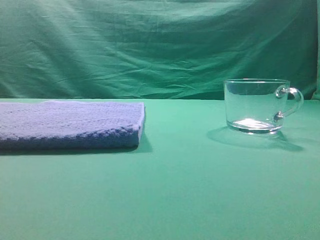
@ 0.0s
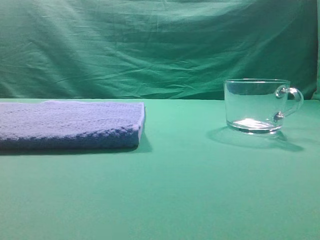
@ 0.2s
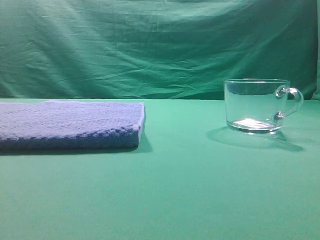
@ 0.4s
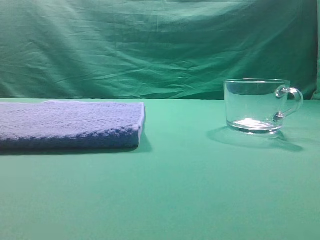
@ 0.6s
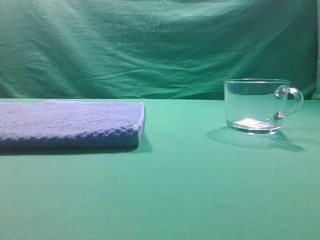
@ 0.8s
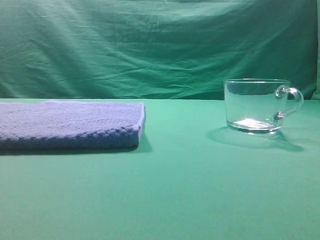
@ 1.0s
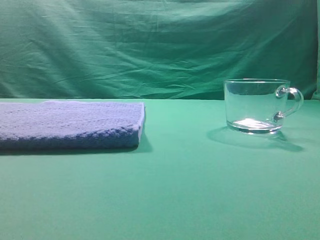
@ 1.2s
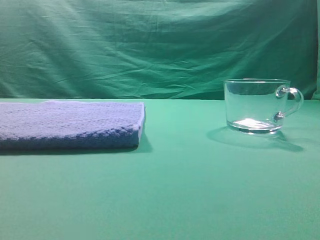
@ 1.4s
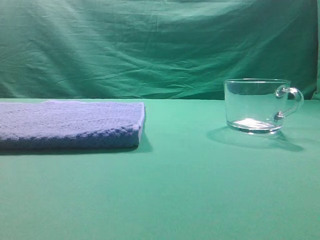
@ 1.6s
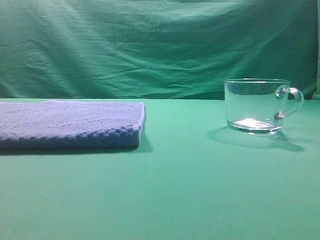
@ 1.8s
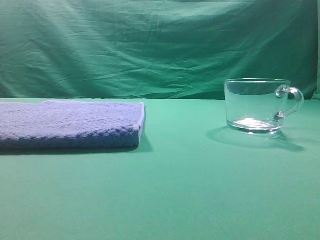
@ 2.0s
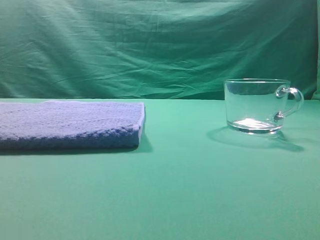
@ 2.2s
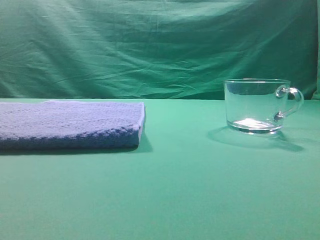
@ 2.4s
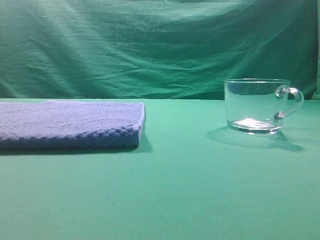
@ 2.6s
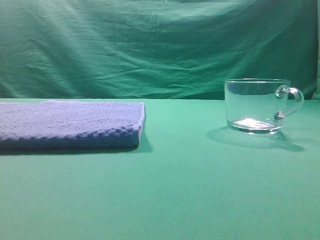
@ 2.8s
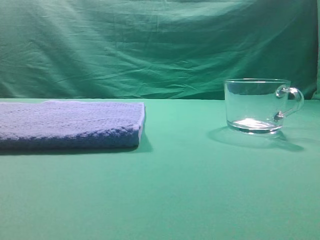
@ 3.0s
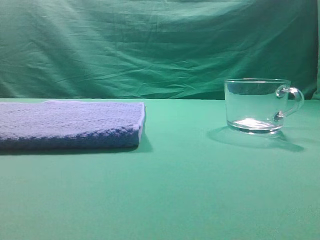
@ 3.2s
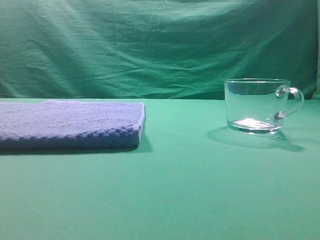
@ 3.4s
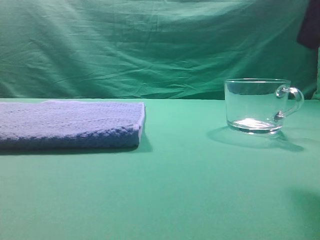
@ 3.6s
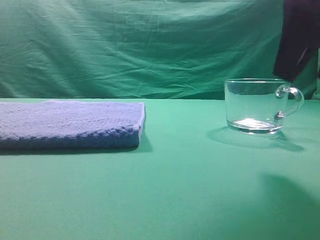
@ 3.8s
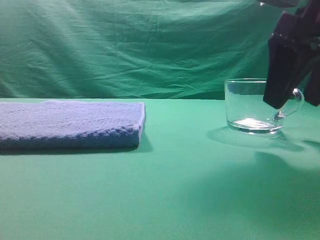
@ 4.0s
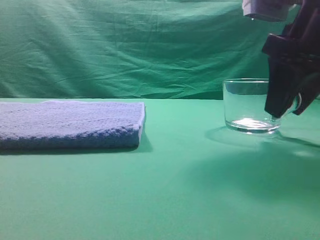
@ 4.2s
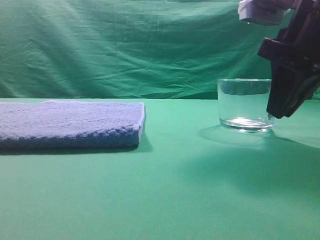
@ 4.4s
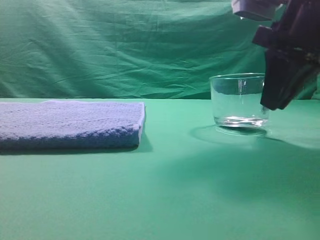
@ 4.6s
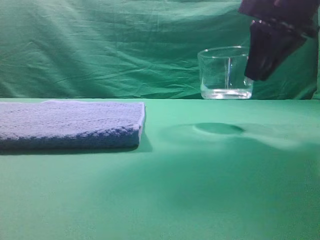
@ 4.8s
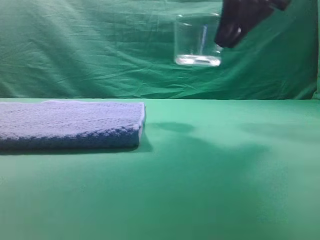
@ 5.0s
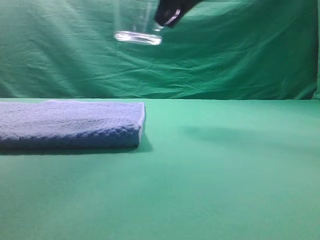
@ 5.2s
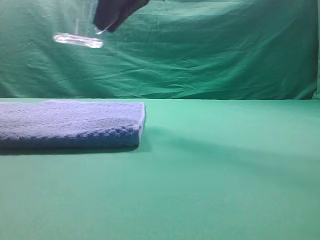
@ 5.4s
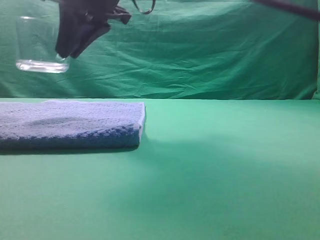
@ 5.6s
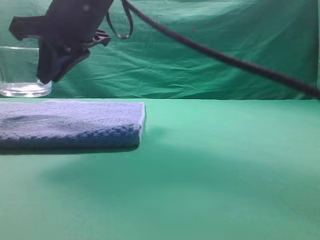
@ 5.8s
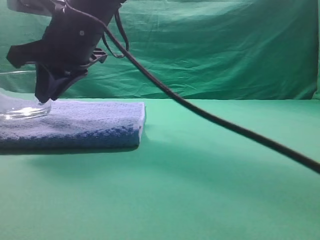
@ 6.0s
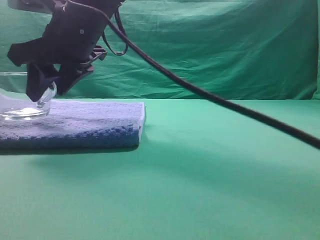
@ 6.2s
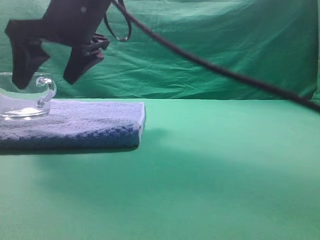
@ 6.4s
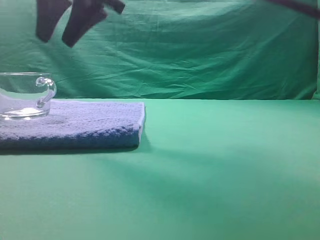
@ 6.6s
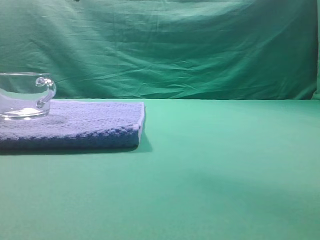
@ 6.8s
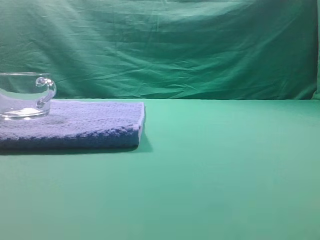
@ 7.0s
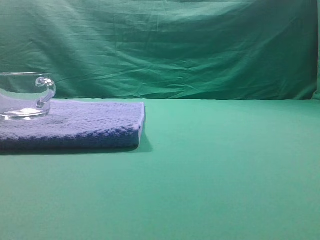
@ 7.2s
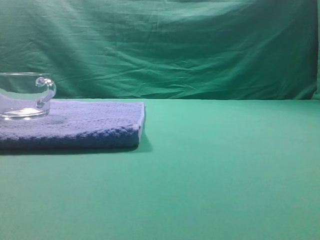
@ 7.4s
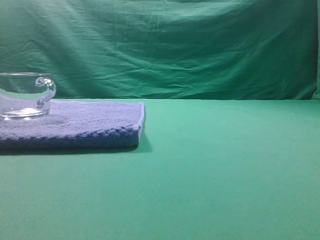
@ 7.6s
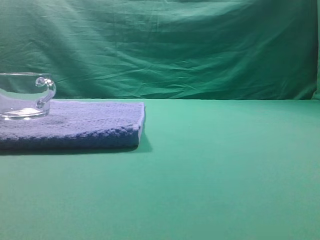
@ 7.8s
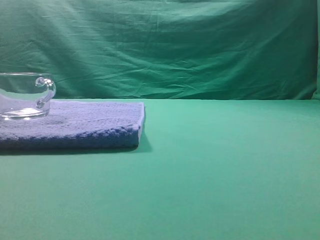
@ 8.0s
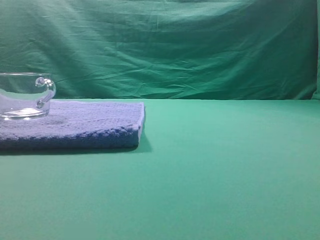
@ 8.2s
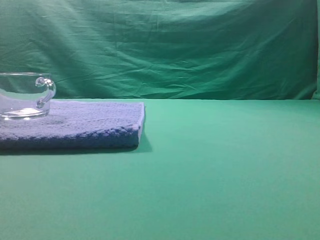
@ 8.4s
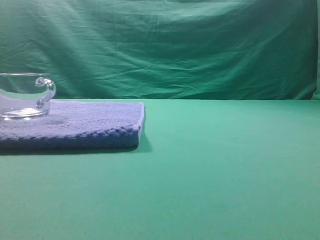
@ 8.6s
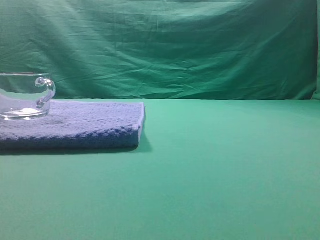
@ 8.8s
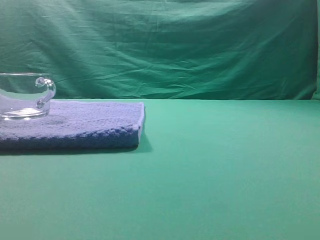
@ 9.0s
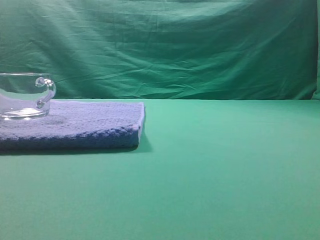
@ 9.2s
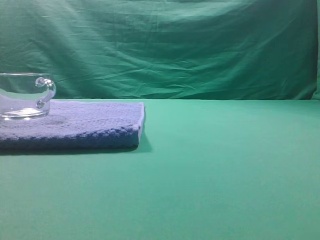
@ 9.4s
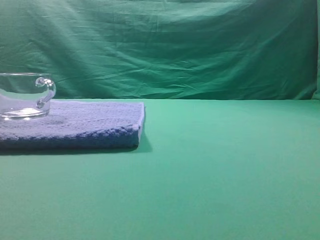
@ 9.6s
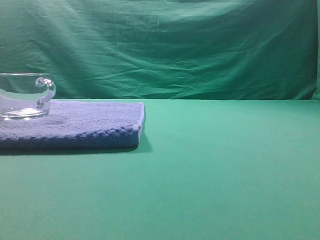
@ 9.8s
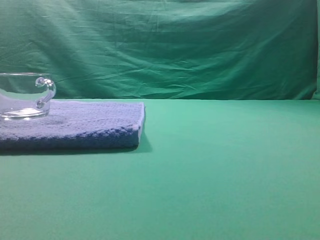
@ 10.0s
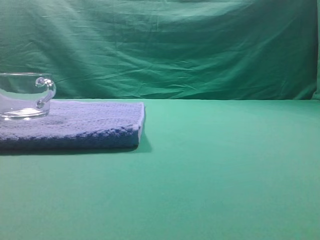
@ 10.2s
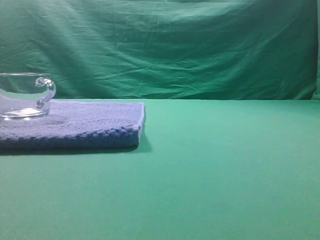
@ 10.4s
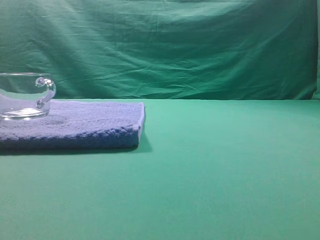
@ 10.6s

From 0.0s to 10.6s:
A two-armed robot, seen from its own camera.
Task of the whole recording: grasp the transparent glass cup and place it within the blue towel.
Step, from 0.0s to 4.6s: Grasp the transparent glass cup.
Step, from 4.8s to 6.4s: Place the glass cup on the blue zone.

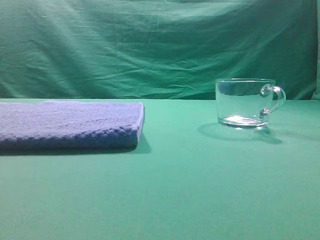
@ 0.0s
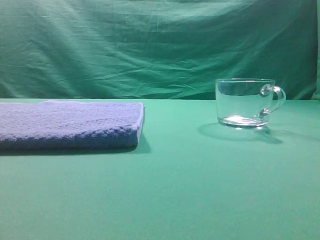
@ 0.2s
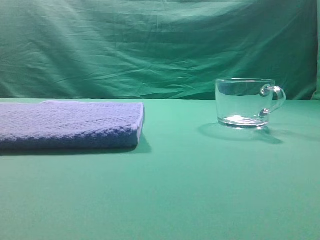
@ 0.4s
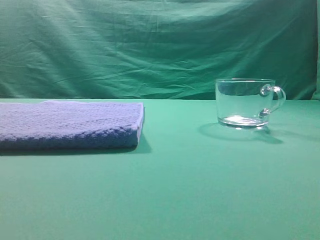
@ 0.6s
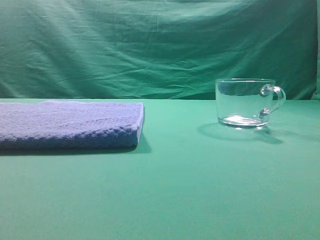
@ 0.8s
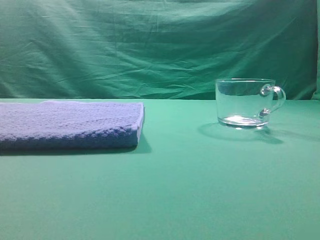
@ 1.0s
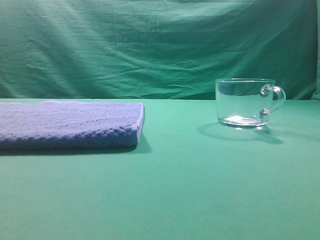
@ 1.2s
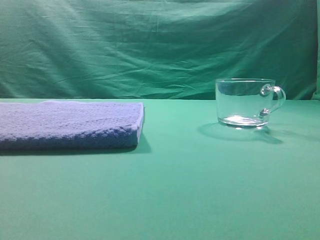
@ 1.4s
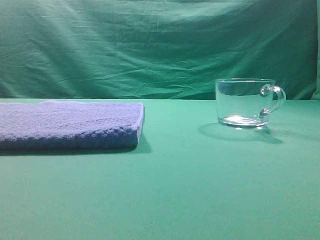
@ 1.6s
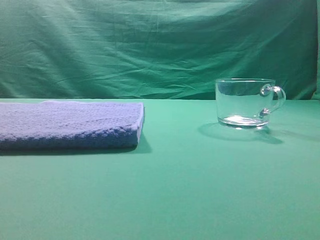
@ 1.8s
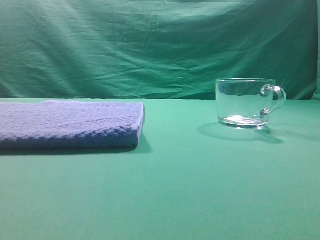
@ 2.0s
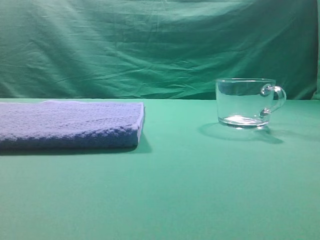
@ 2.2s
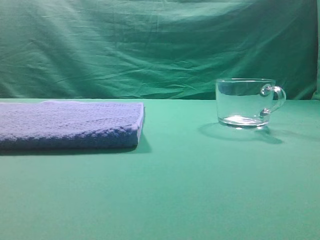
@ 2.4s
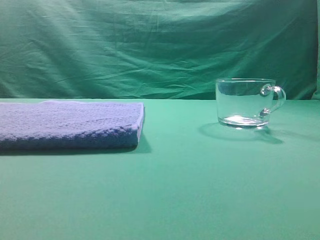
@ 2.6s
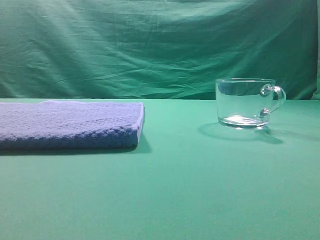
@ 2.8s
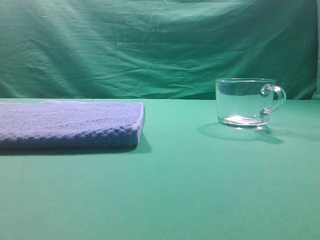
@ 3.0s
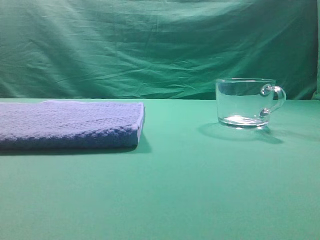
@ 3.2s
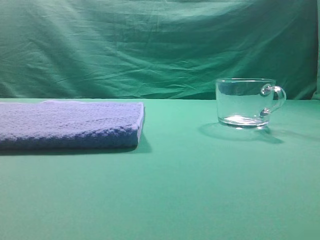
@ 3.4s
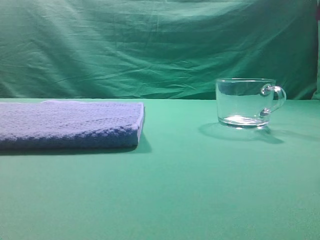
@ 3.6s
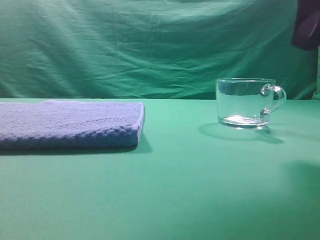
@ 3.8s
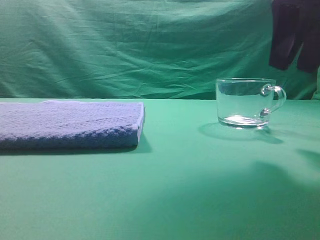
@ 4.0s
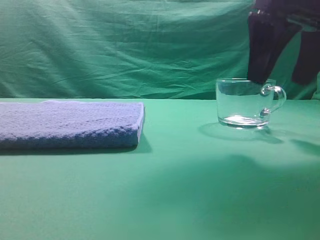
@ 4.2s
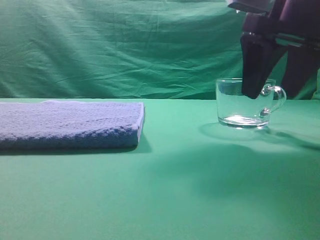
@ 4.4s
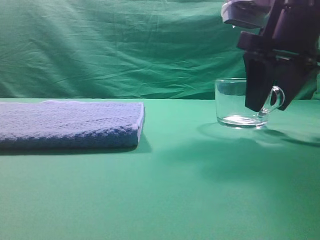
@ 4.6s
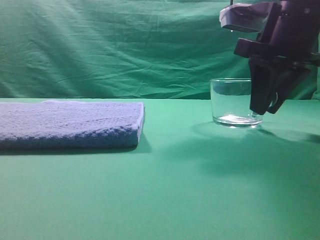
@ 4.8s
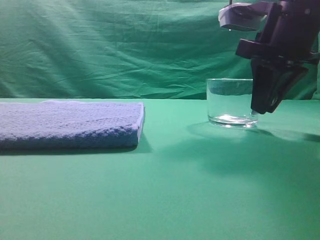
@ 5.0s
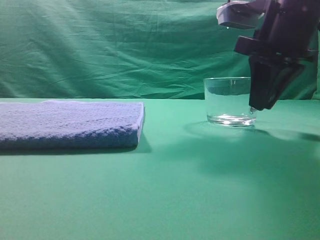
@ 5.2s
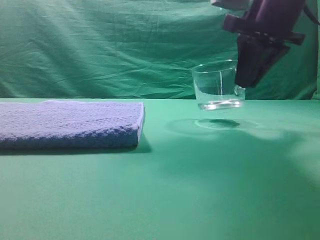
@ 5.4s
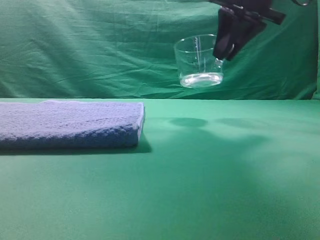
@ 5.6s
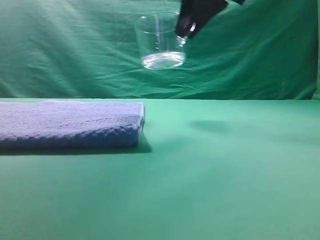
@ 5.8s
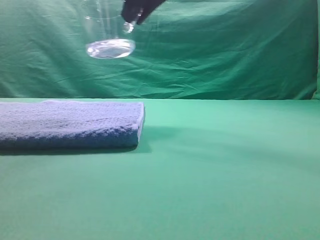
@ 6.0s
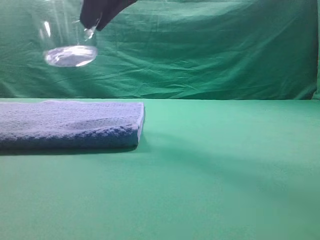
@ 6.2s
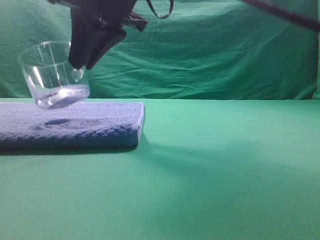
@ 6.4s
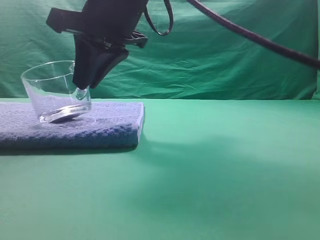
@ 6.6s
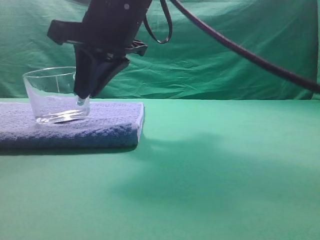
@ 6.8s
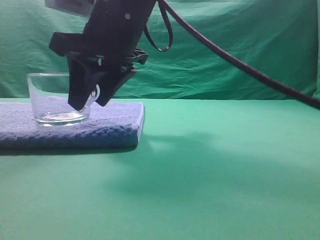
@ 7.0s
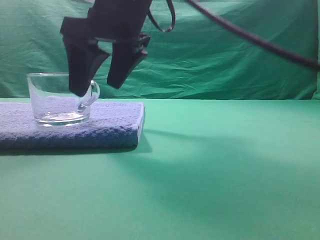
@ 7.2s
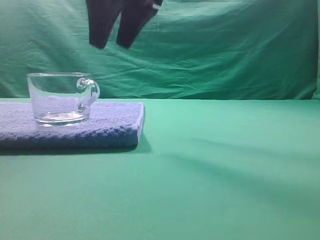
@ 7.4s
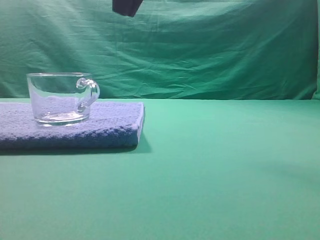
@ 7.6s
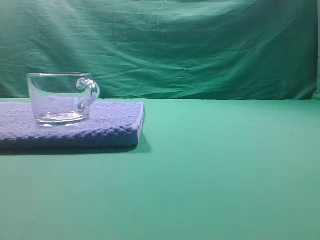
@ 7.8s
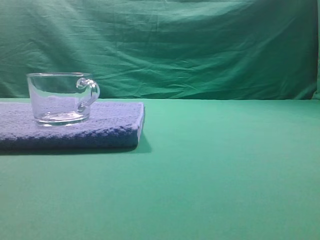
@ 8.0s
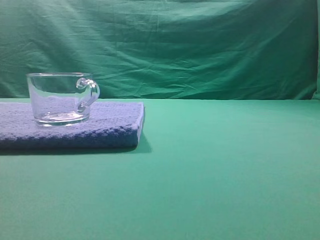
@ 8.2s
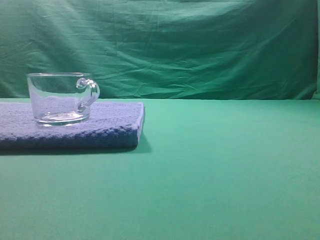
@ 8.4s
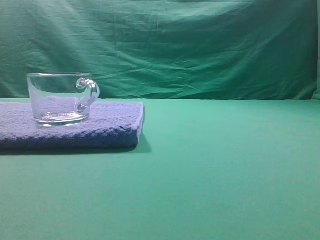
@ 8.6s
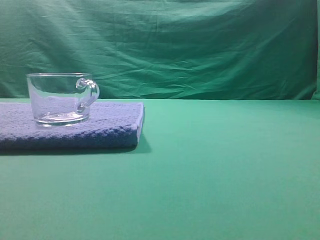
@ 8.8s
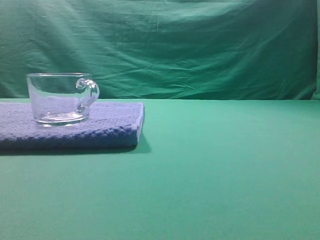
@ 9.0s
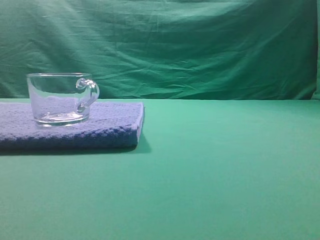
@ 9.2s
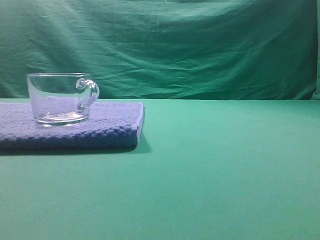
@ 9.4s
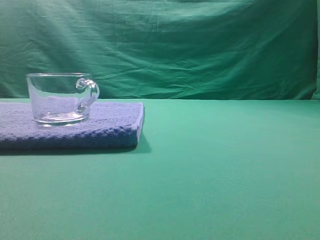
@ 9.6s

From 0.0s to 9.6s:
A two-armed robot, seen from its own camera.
Task of the whole recording: grasp the transparent glass cup and place it within the blue towel.
Step, from 0.0s to 5.2s: Grasp the transparent glass cup.
Step, from 5.6s to 7.2s: Place the glass cup on the blue zone.

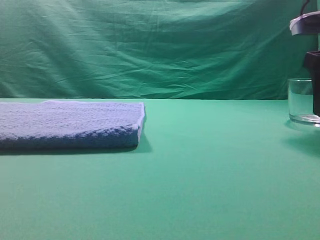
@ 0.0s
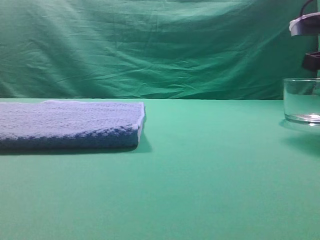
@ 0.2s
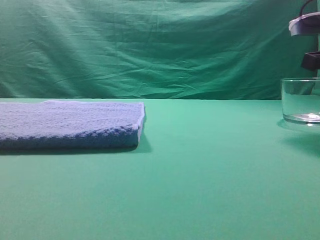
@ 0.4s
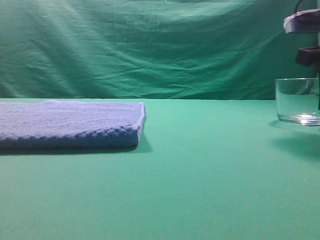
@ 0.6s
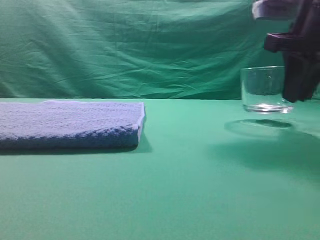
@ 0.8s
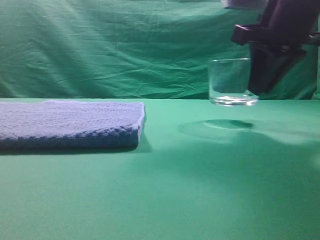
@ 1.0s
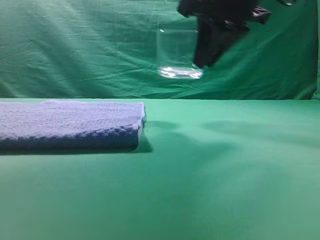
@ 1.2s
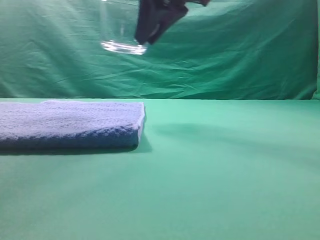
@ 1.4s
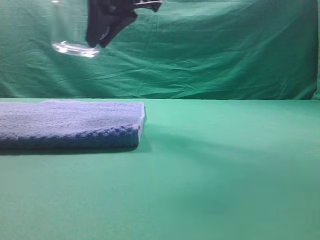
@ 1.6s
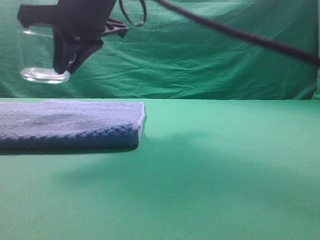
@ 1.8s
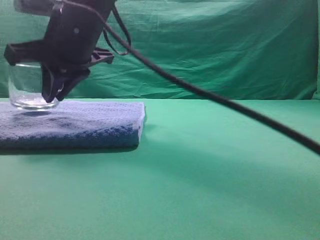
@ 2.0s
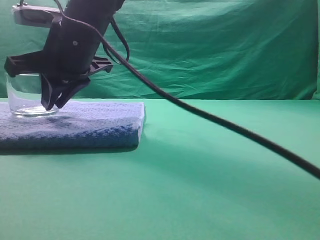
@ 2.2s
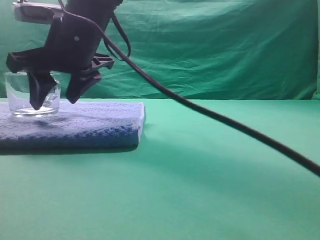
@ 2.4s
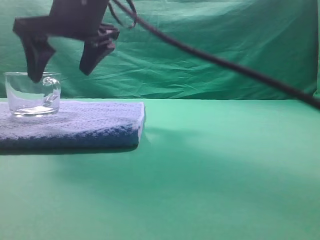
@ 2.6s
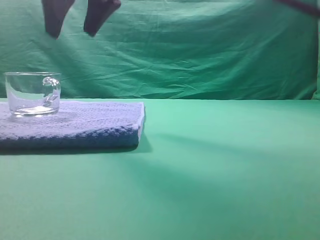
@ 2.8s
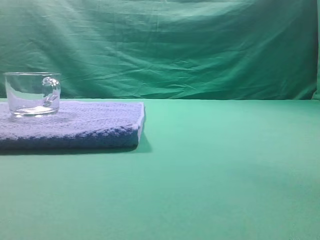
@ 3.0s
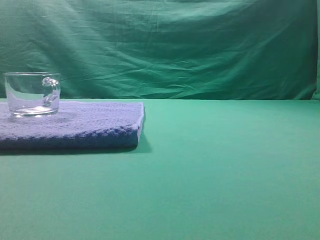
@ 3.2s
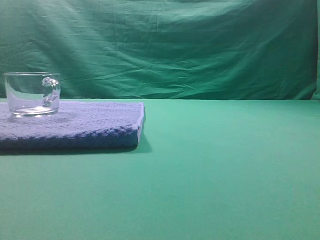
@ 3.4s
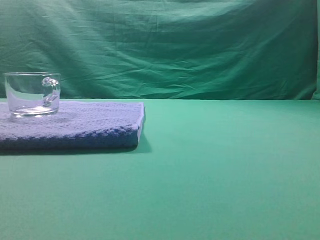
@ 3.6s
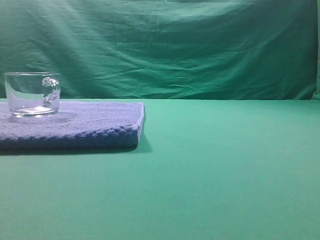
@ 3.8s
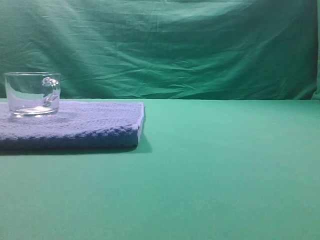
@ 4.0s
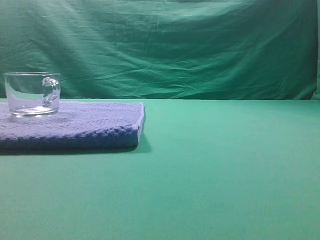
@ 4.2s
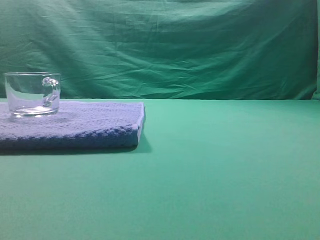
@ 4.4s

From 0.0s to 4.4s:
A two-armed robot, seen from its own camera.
Task of the whole recording: grasp the transparent glass cup and place it within the blue towel.
Step, from 0.0s to 2.2s: Place the glass cup on the blue zone.
